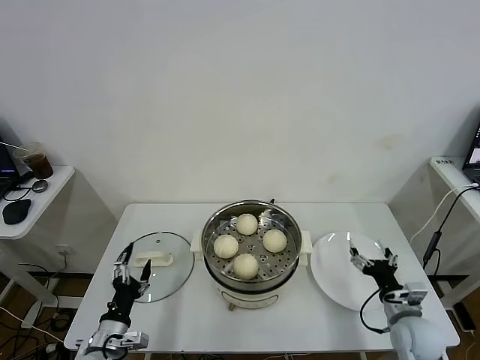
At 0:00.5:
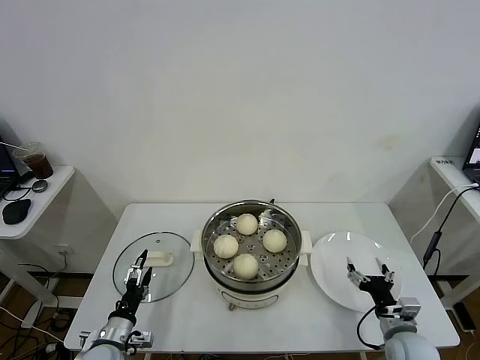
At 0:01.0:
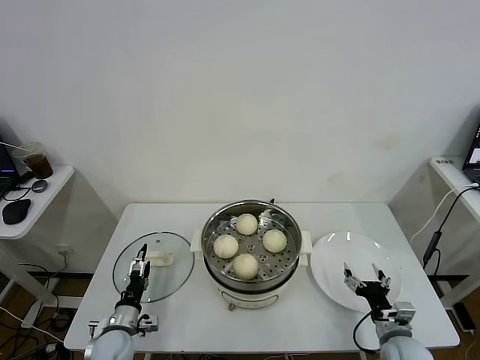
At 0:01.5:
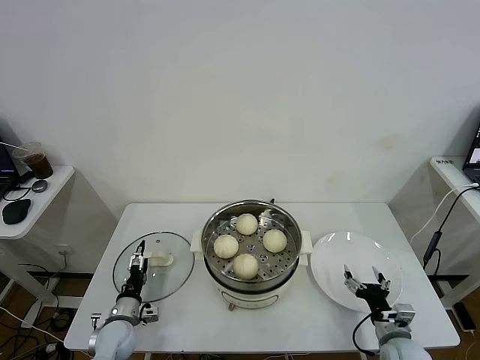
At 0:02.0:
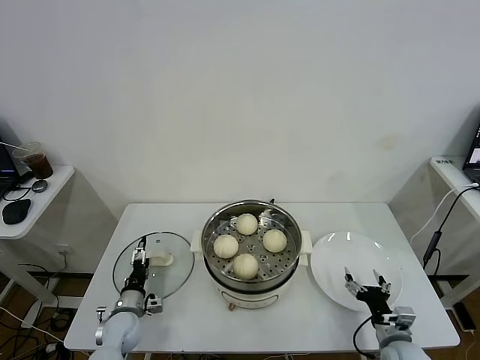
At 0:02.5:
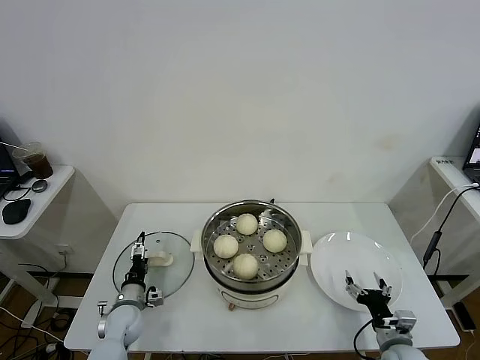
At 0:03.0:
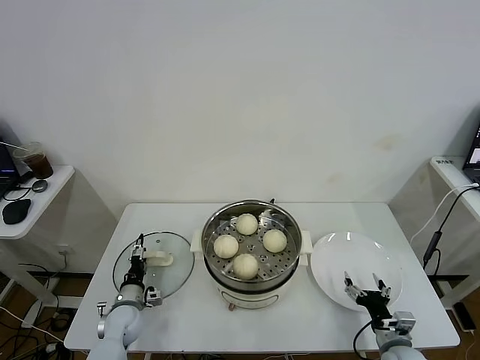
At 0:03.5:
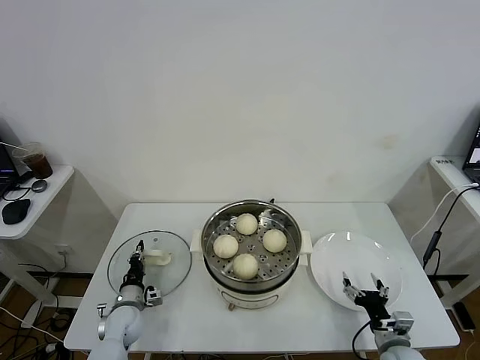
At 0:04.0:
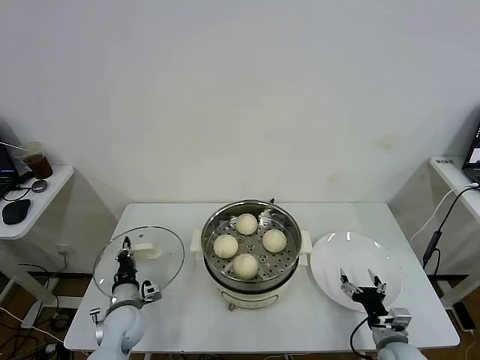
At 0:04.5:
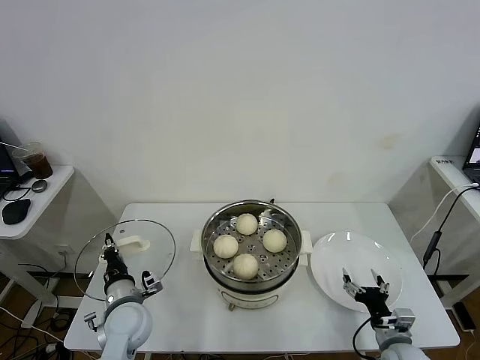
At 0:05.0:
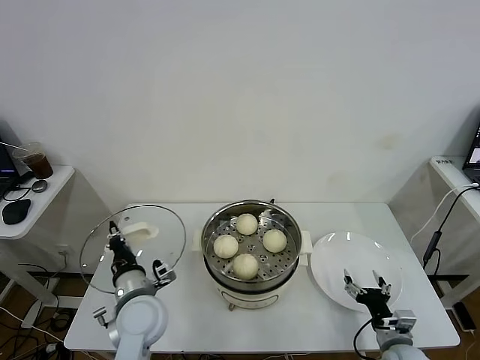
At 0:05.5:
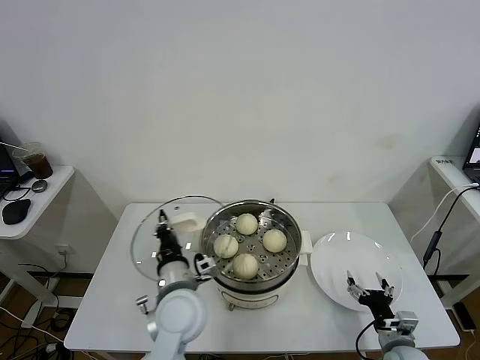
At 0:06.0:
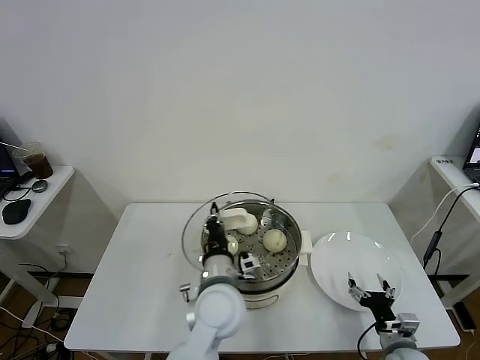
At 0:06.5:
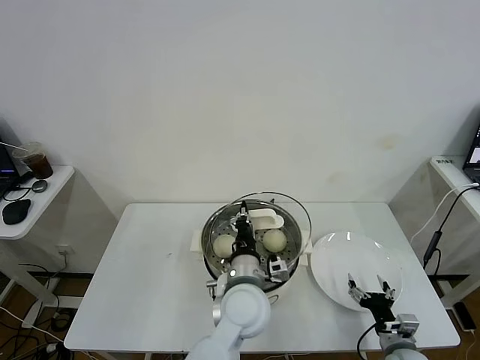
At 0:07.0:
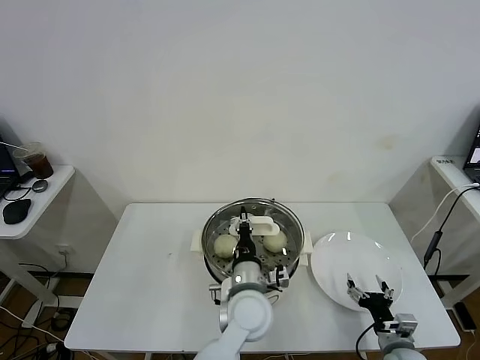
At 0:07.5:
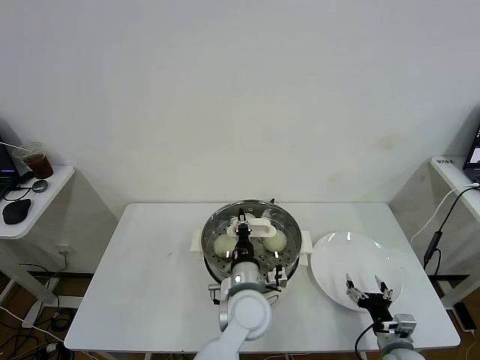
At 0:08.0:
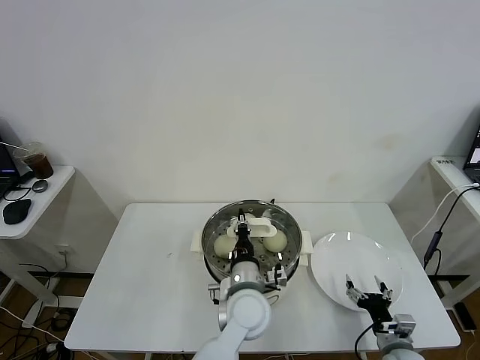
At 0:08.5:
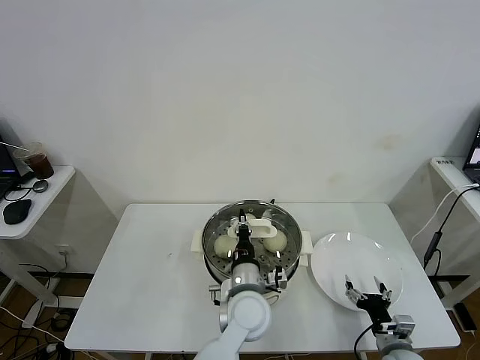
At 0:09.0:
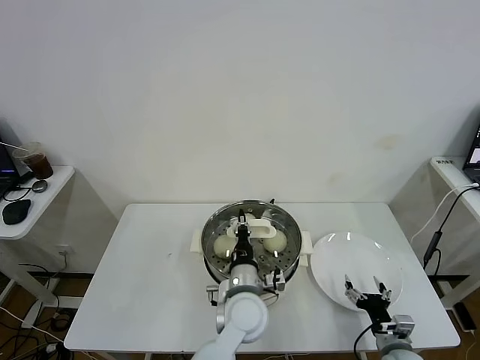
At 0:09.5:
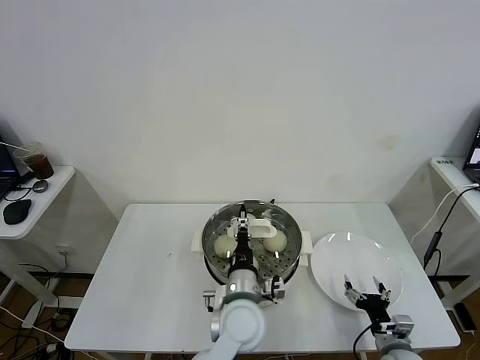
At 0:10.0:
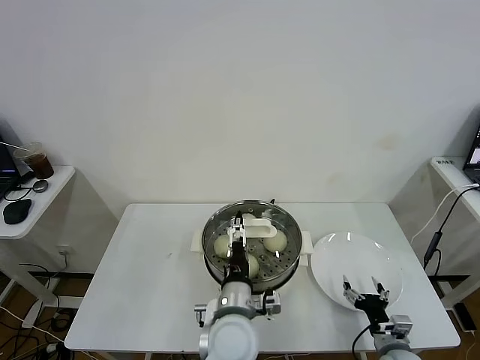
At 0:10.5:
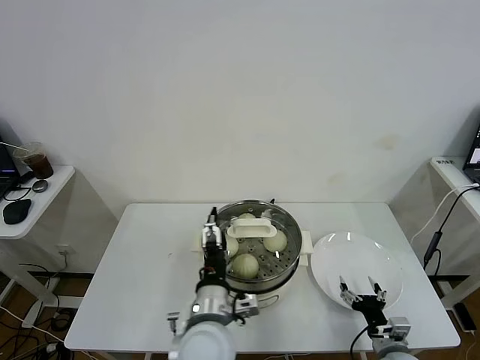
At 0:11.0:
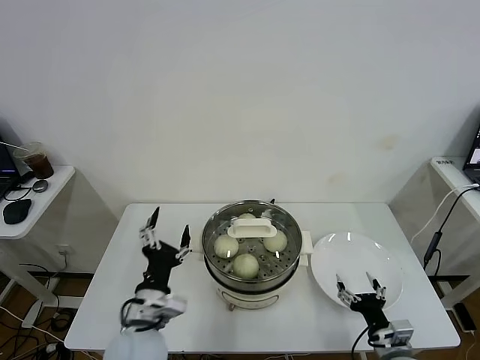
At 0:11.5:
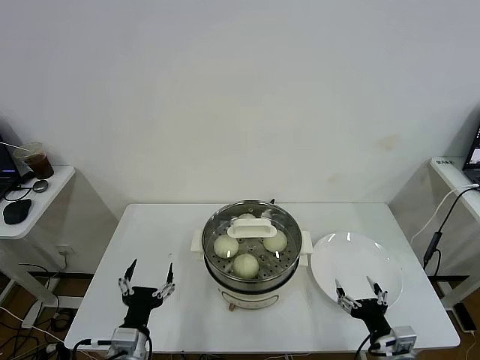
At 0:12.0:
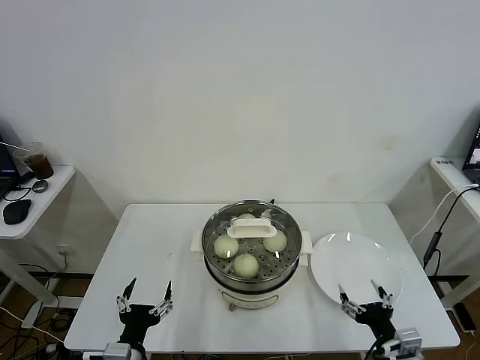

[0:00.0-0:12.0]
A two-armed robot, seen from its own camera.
Task of the whole recording: take steamed baozi put them in steamer.
Step, 0:00.0 to 0:03.5: Grasp the pot lid with left gripper.
Step, 0:04.0 to 0:09.0: Place the pot lid on the steamer with left gripper.
0:00.0 to 0:02.0: The left gripper moves forward and downward, about 15 cm; the right gripper shifts some 5 cm downward.
0:02.0 to 0:04.0: The left gripper changes place by roughly 5 cm, and closes.
0:04.0 to 0:06.0: The left gripper is displaced to the right and upward by approximately 30 cm.
0:06.0 to 0:08.0: The left gripper is displaced to the right by about 5 cm.
0:08.0 to 0:10.0: The left gripper shifts roughly 5 cm backward, and opens.
0:10.0 to 0:12.0: The left gripper is displaced to the left and backward by about 25 cm. The right gripper is displaced upward and backward by approximately 10 cm.
